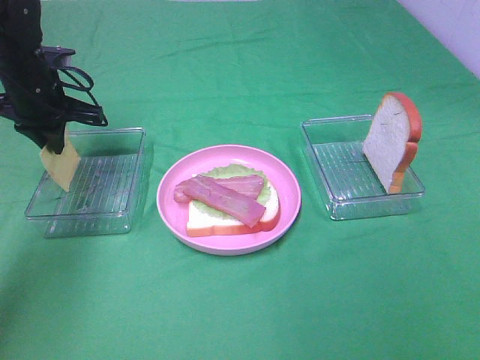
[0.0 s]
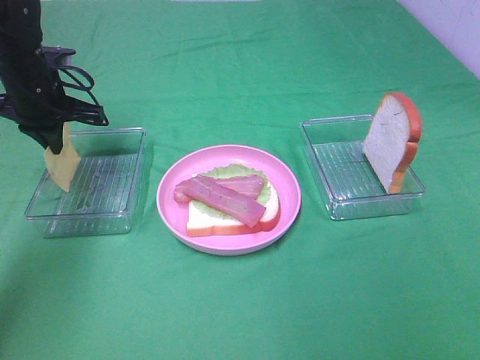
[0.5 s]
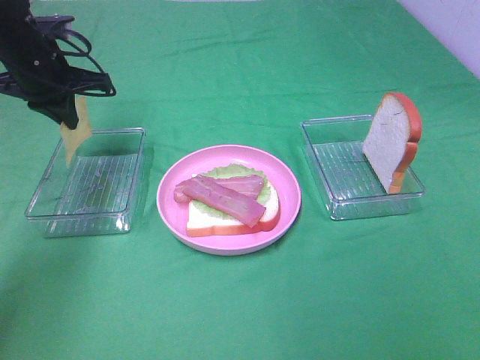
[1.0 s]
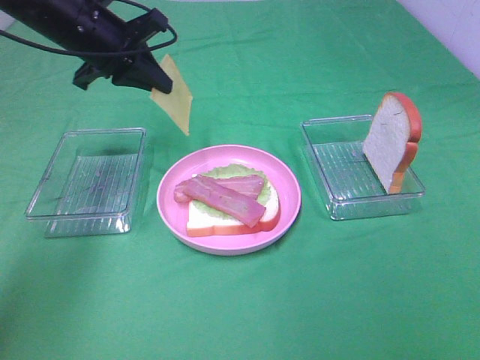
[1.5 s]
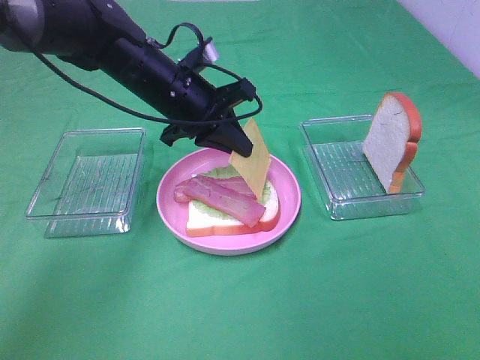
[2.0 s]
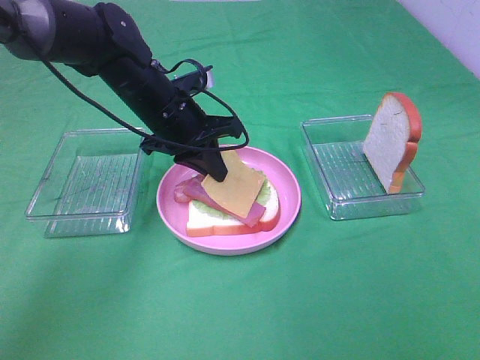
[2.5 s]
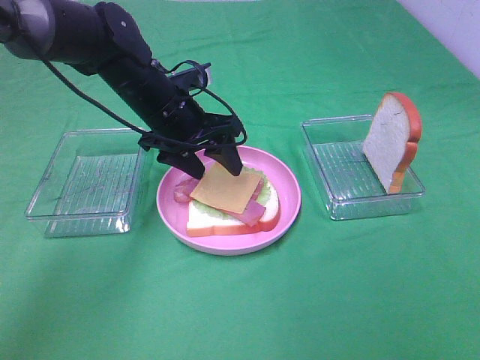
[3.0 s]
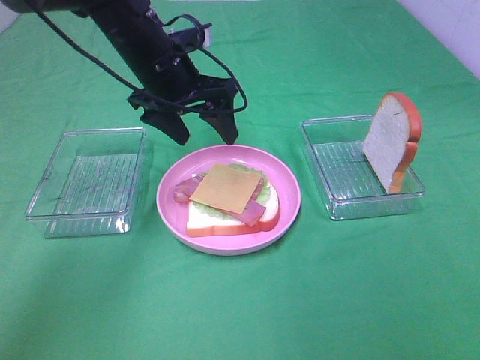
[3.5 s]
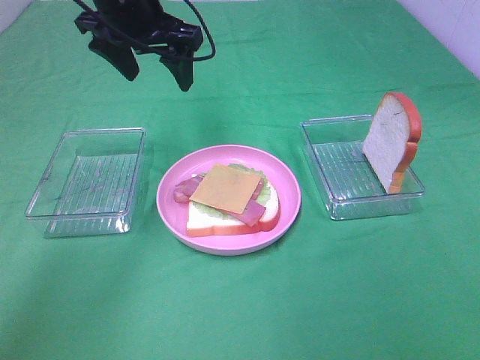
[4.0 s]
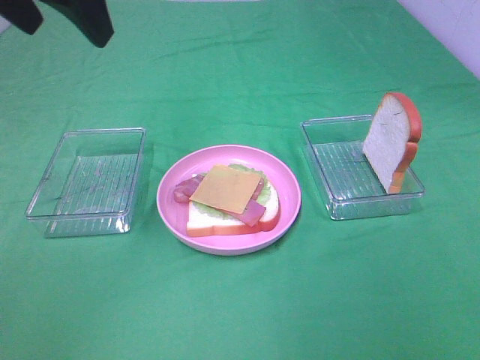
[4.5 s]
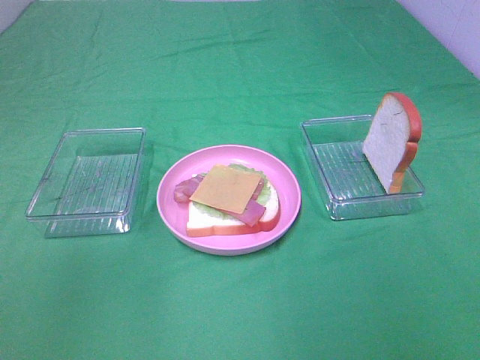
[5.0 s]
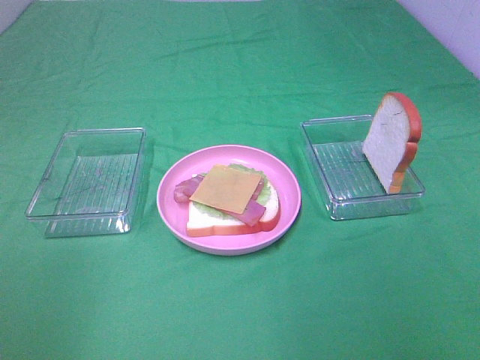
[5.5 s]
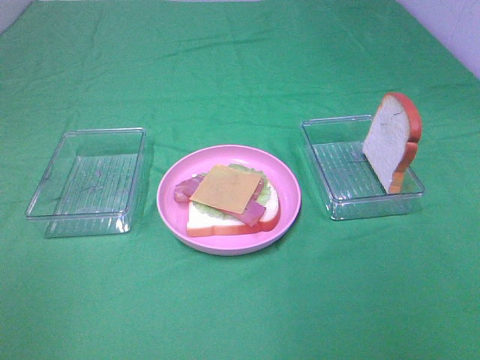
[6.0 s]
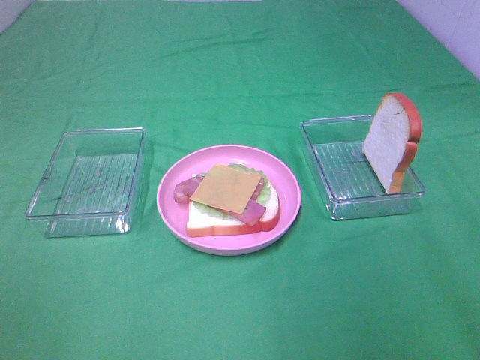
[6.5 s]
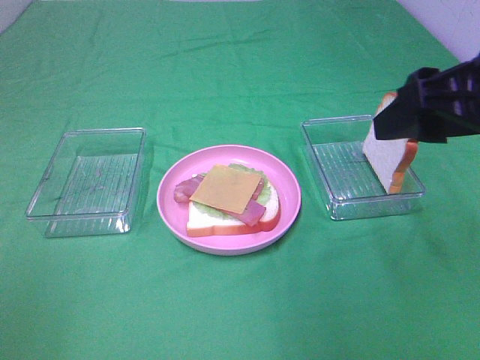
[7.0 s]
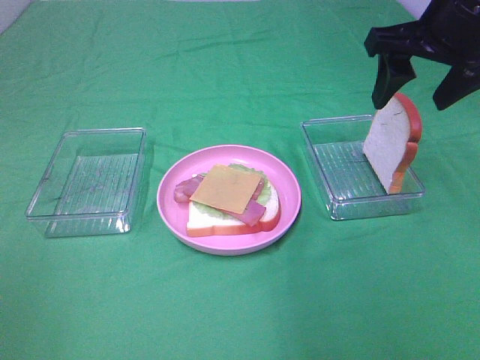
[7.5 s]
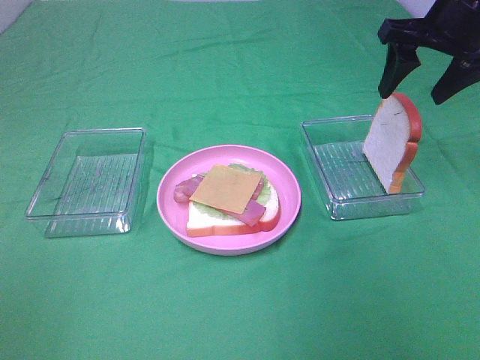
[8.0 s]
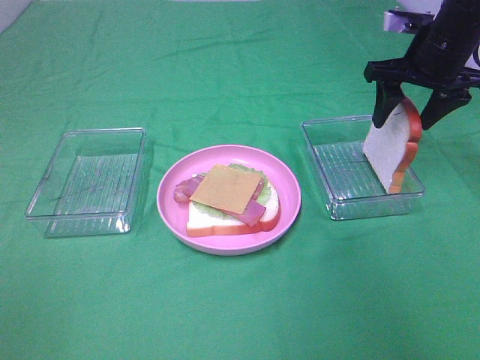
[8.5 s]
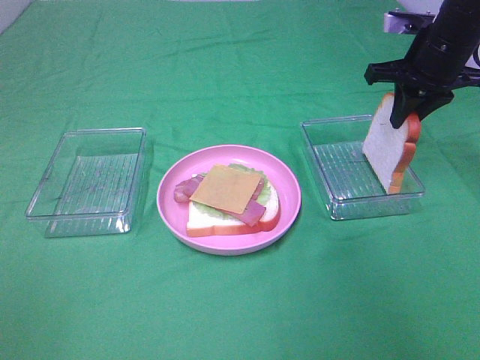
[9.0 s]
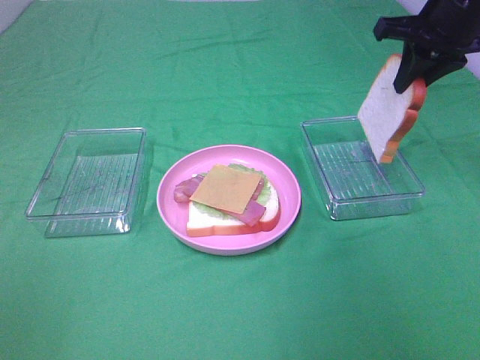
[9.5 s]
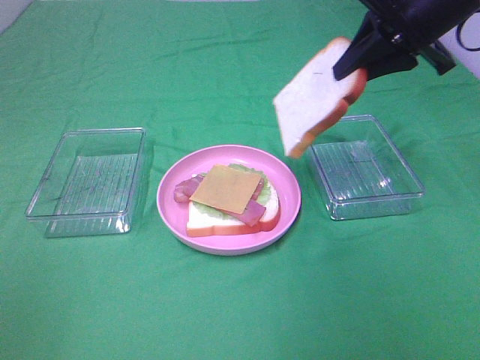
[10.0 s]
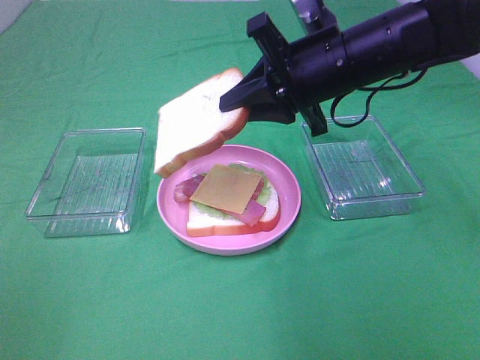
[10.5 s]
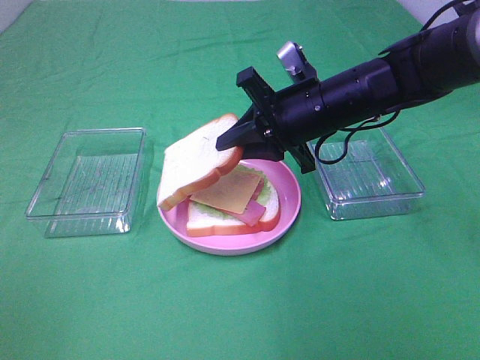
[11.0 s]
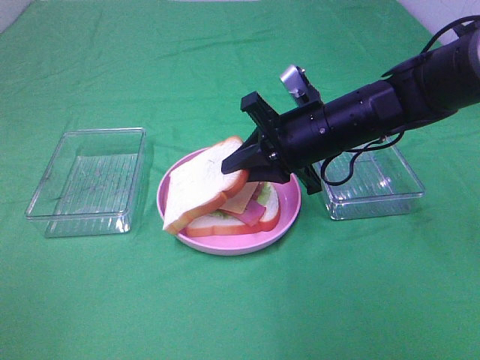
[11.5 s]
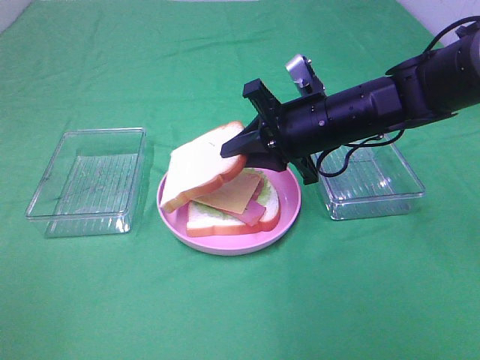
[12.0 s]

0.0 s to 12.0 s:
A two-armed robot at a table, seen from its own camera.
Task of the whole recording: Make sandwiches.
Step, 1.0 to 3.0 s: Left hand:place the cheese slice on top of the bacon.
Step, 3.5 to 9.0 s: Right hand:grab the bread slice.
0.0 to 2.0 s: The left gripper shifts about 20 cm to the right.
2.0 to 4.0 s: The left gripper heads upward, covering approximately 10 cm, and opens.
4.0 to 6.0 s: The left gripper heads backward and to the left, covering about 50 cm.
6.0 to 8.0 s: The right gripper shifts some 40 cm forward.
8.0 to 10.0 s: The right gripper changes place by some 5 cm, and closes up.
10.0 to 12.0 s: The right gripper is displaced downward and to the left by roughly 15 cm.

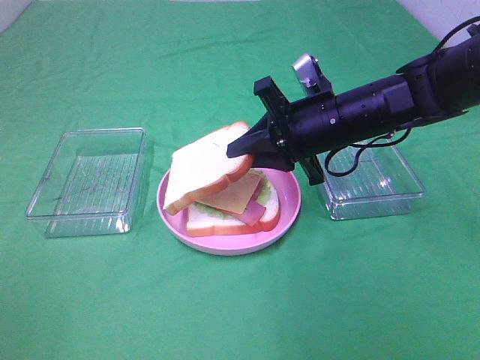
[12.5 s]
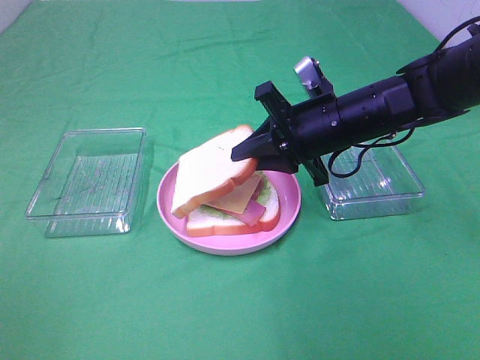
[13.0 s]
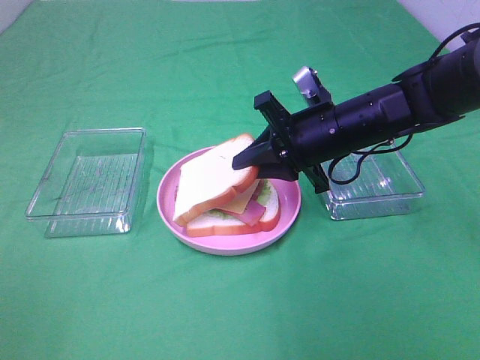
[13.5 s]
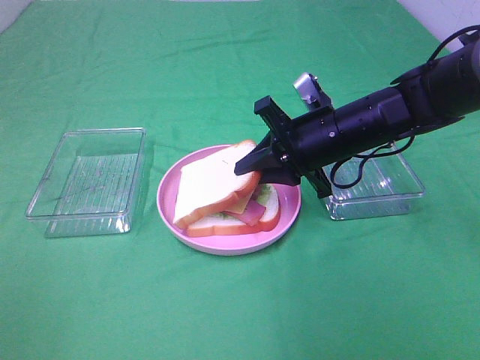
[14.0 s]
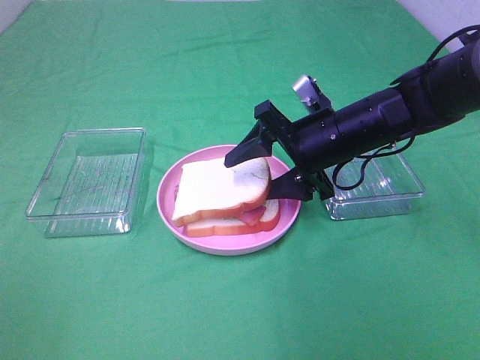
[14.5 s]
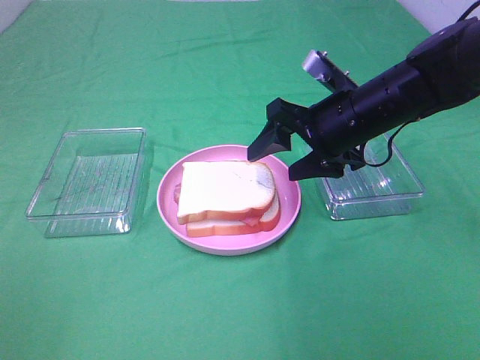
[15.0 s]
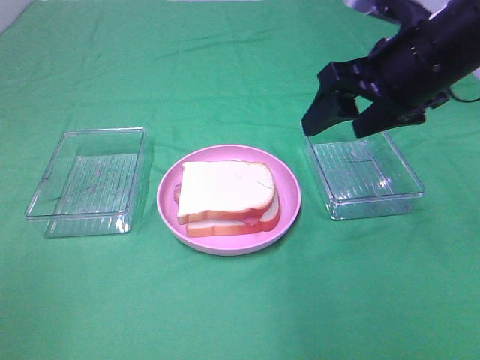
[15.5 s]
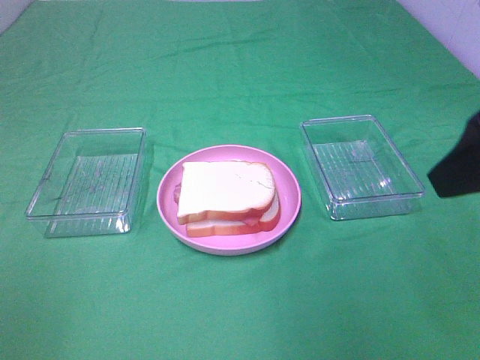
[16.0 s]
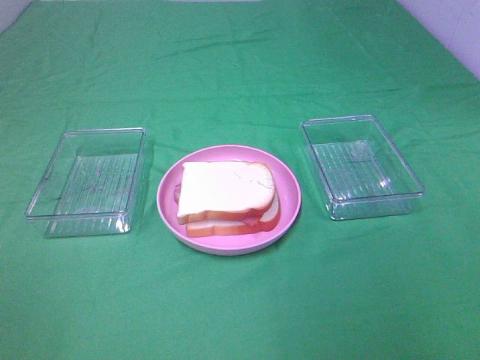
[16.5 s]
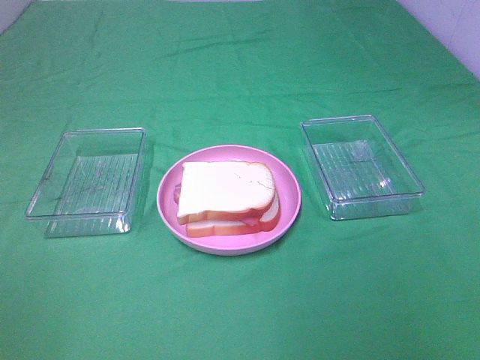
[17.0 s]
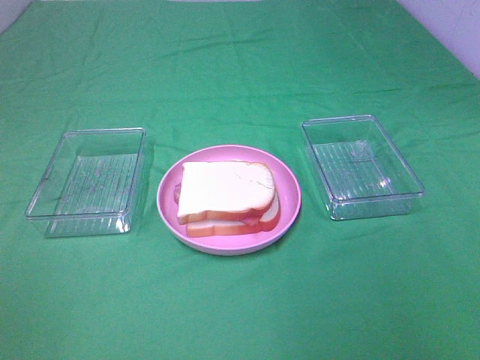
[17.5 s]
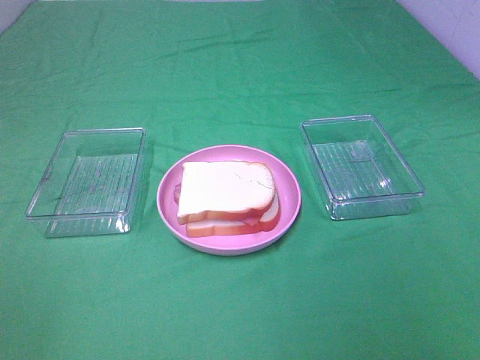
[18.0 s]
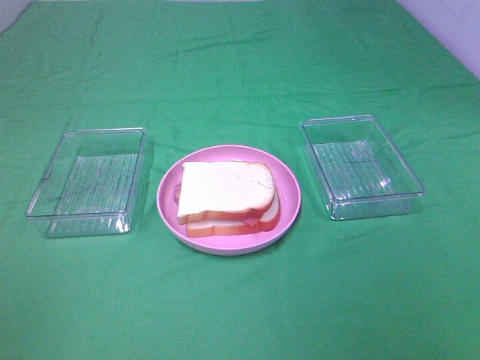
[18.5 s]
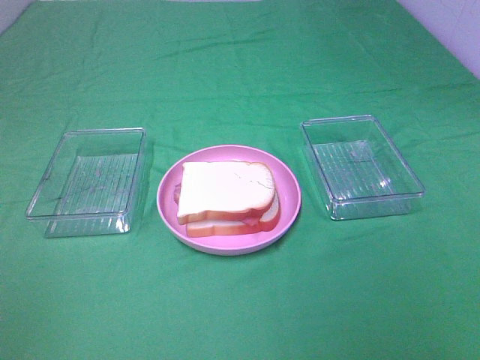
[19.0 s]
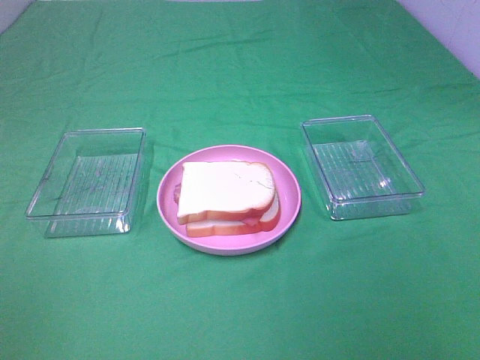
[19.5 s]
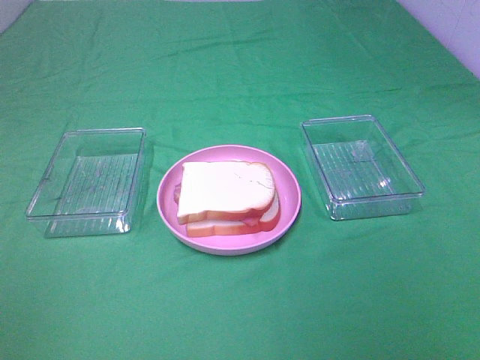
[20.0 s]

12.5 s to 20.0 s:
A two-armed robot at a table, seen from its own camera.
Task of the whole recording: Make sandwiches.
Step, 12.5 to 14.5 s: Right hand:place the bread slice on the cheese slice.
12.5 to 14.5 s: The right gripper opens up.
14.5 to 16.5 s: The right gripper travels backward, upward and to the right by about 35 cm.

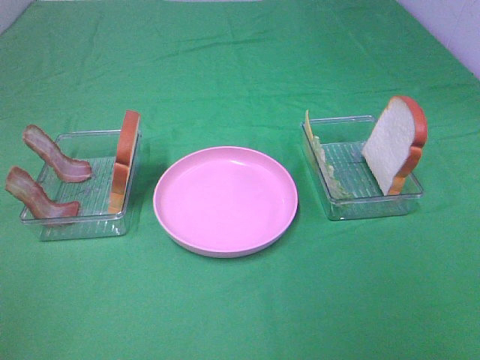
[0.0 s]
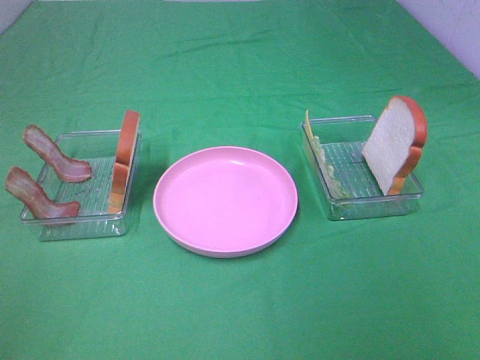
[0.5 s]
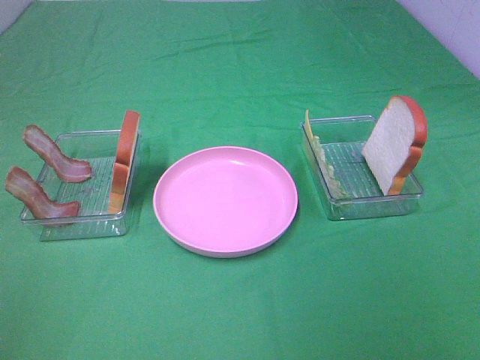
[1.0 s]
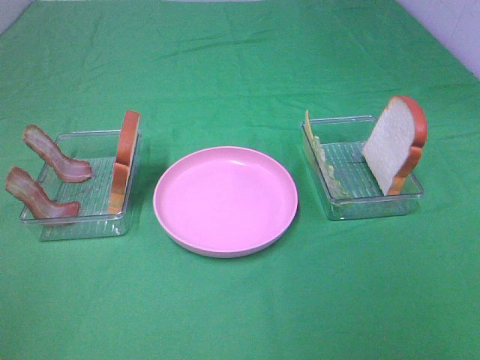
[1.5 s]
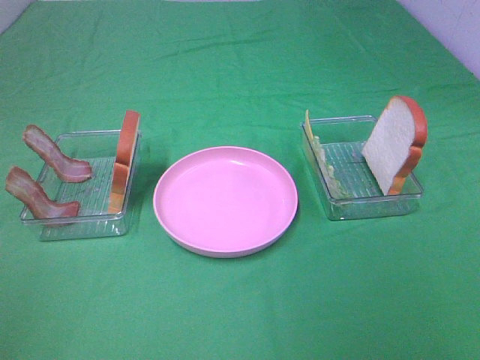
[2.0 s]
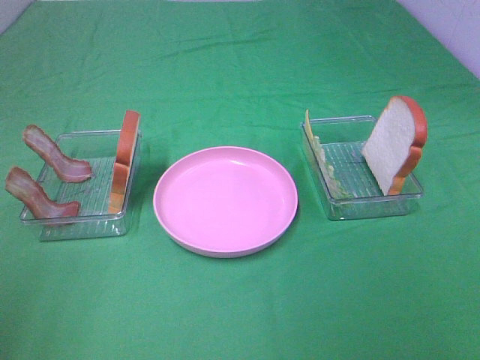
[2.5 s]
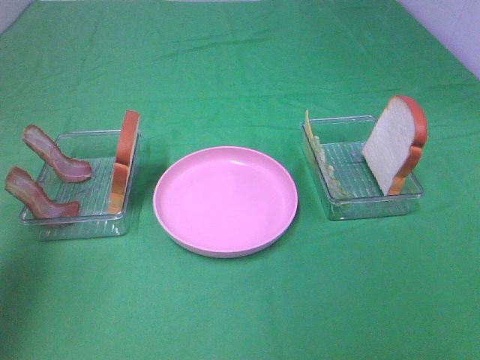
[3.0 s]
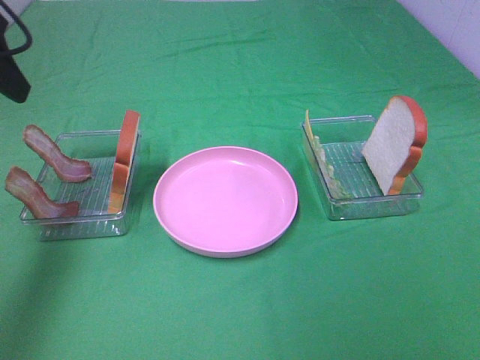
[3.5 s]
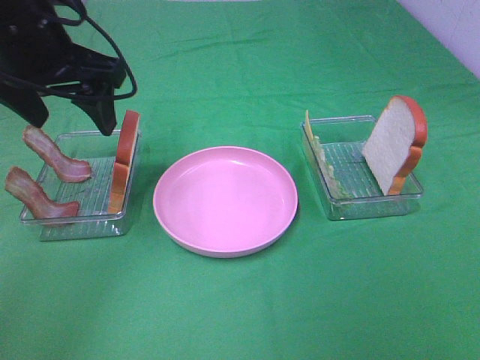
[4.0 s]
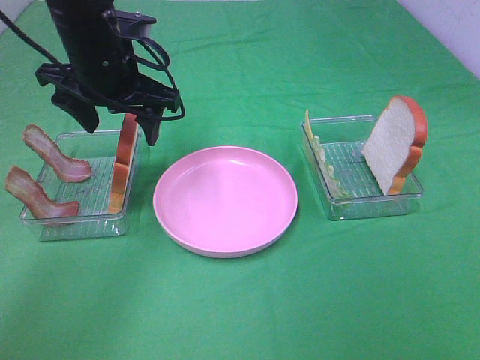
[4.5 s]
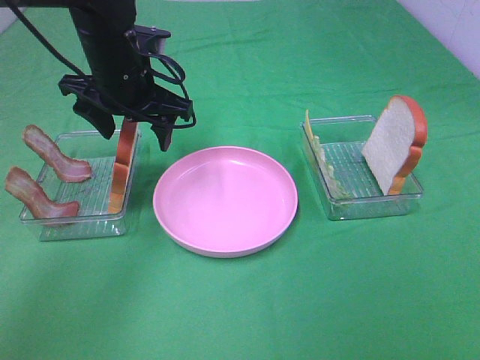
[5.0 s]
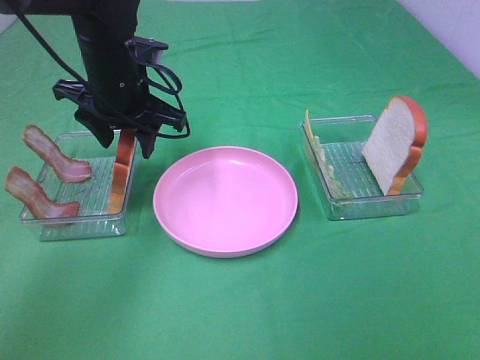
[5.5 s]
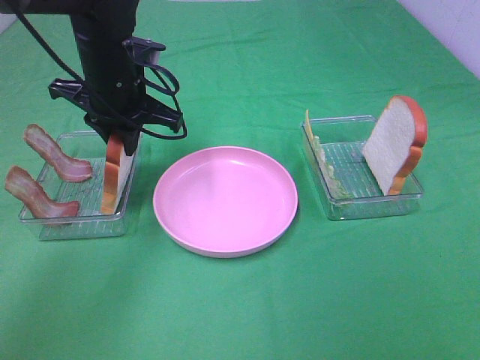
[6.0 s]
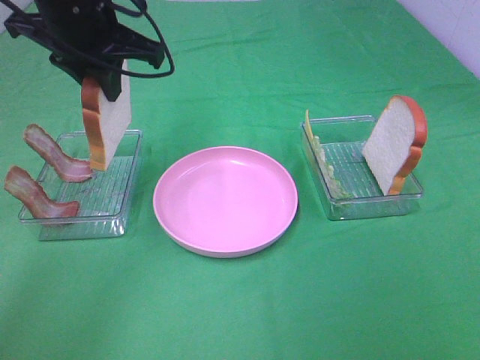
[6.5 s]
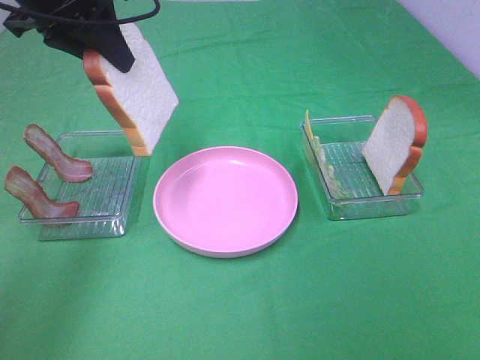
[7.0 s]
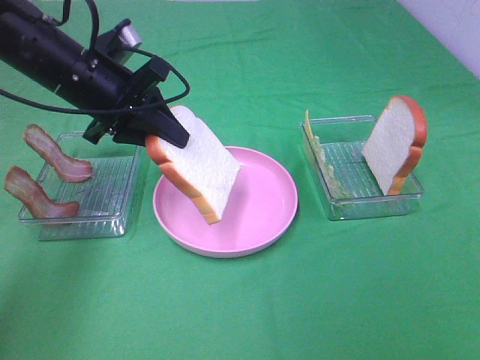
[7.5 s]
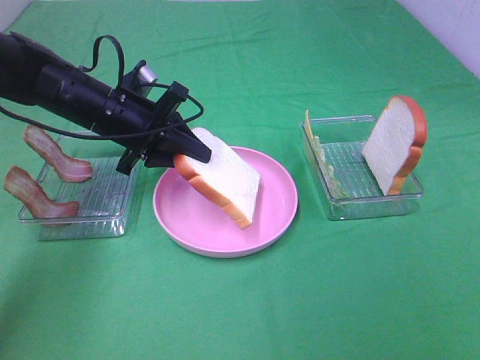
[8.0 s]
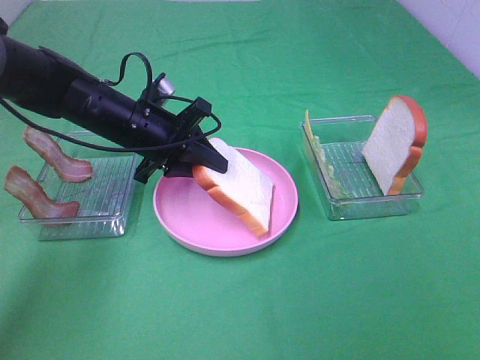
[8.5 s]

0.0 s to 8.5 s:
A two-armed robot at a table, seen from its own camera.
Task of the whole recording: Make sandwiches.
Step, 0.0 to 6.0 s: Left hand:grab the bread slice.
0.0 to 2.0 s: Both grippers stay put.
2.0 to 4.0 s: The left gripper moves forward and to the right, about 35 cm.
4.0 to 6.5 s: The left gripper reaches some 10 cm downward, then returns, and closes up.
6.5 to 8.5 s: The left gripper moves downward, some 15 cm.
